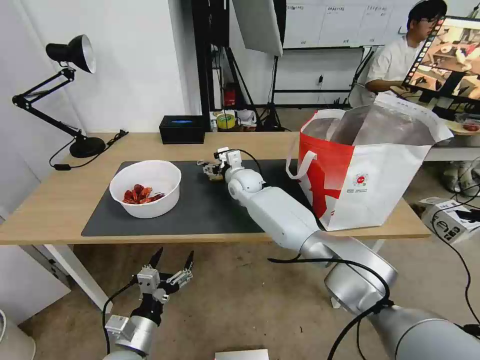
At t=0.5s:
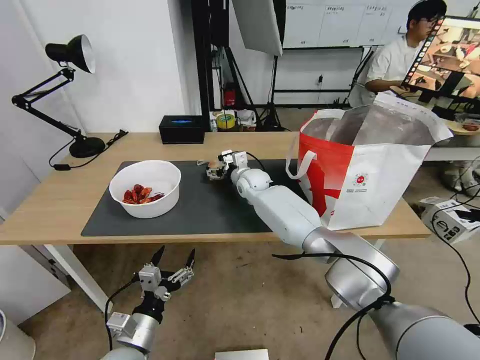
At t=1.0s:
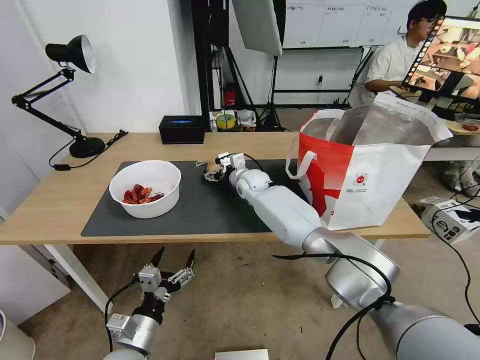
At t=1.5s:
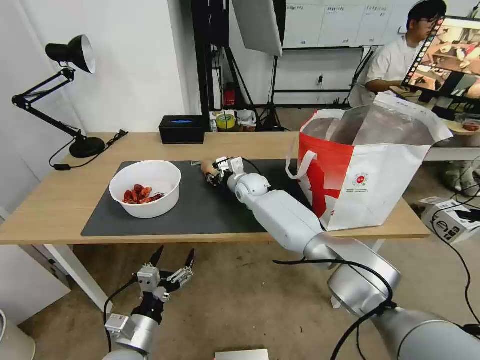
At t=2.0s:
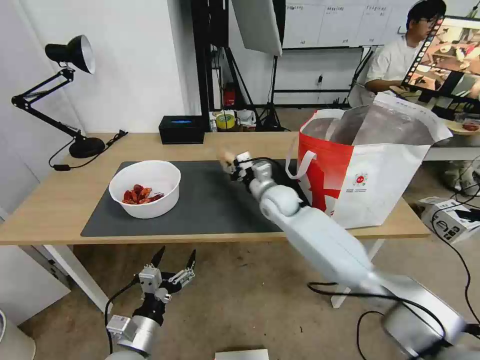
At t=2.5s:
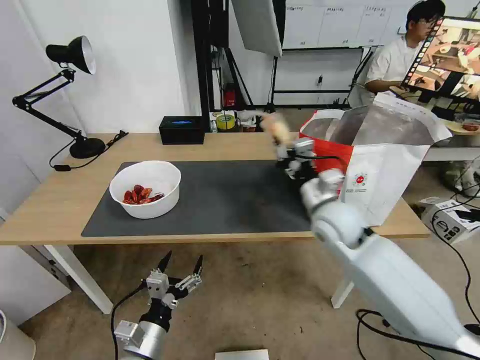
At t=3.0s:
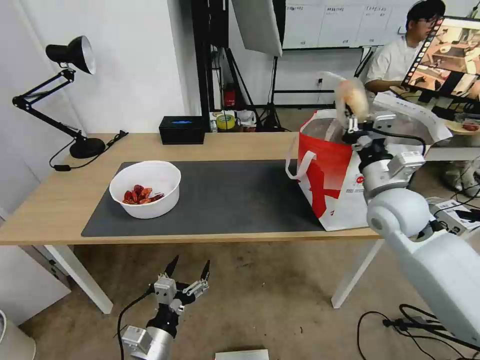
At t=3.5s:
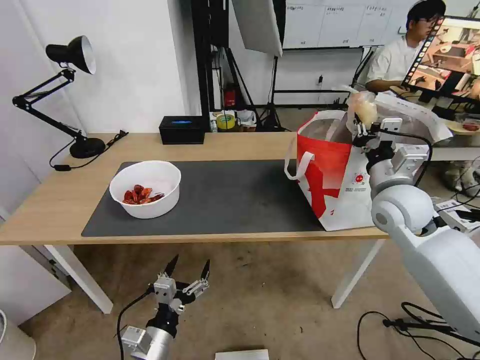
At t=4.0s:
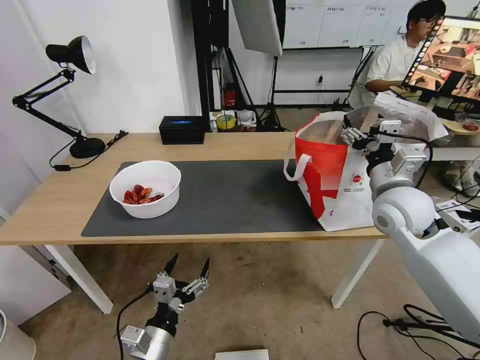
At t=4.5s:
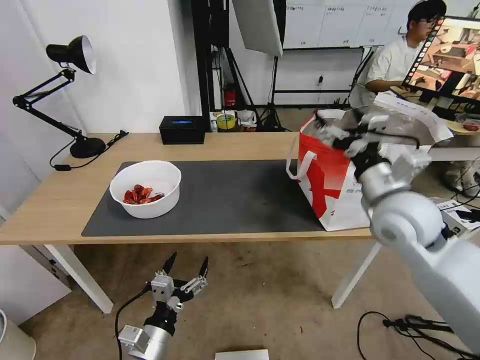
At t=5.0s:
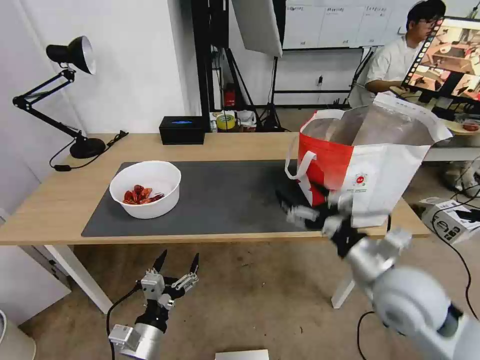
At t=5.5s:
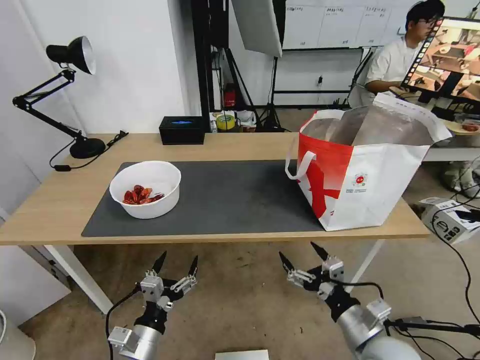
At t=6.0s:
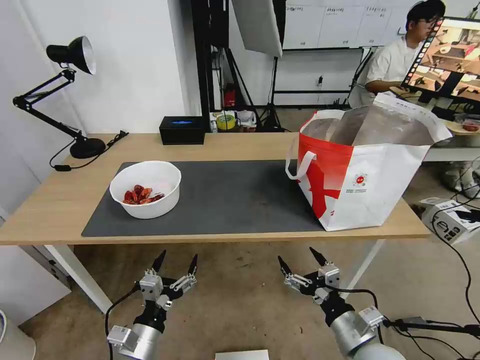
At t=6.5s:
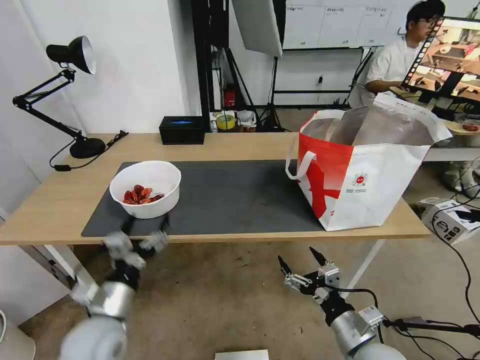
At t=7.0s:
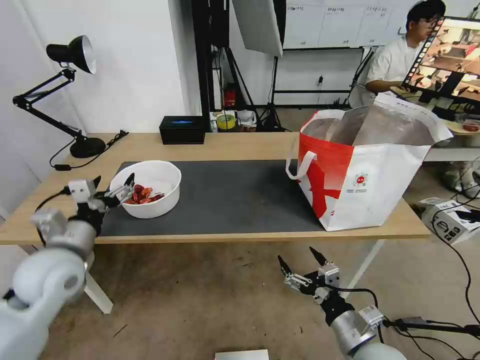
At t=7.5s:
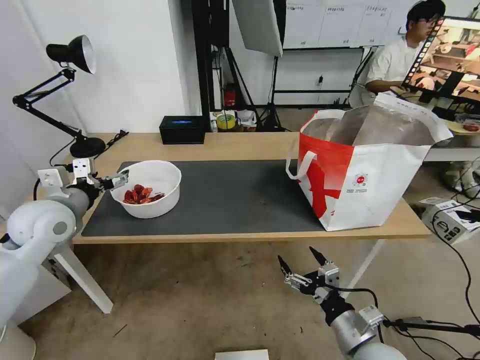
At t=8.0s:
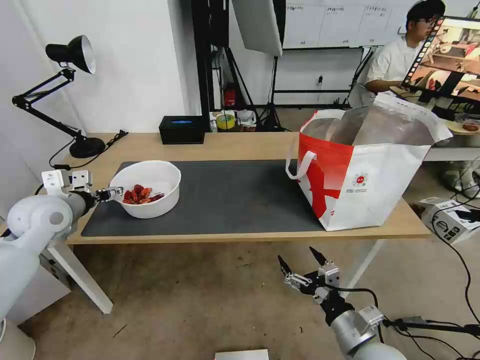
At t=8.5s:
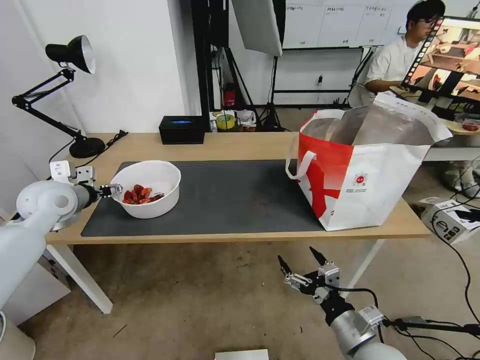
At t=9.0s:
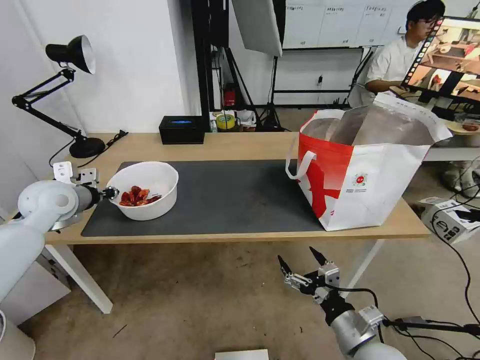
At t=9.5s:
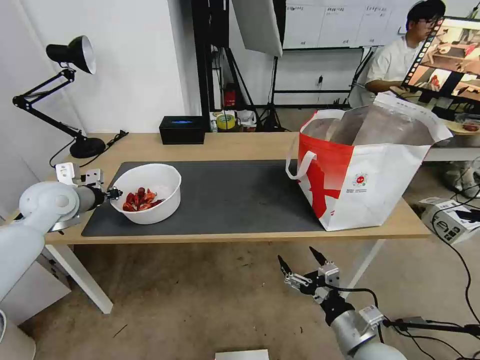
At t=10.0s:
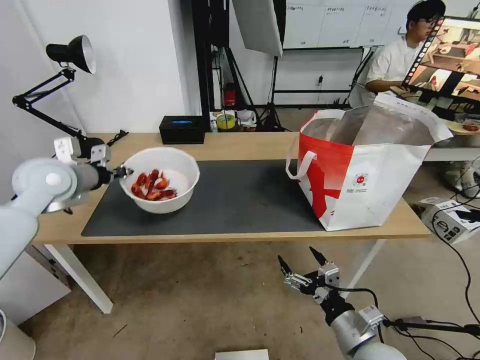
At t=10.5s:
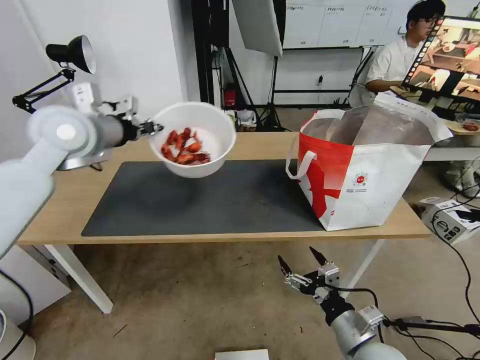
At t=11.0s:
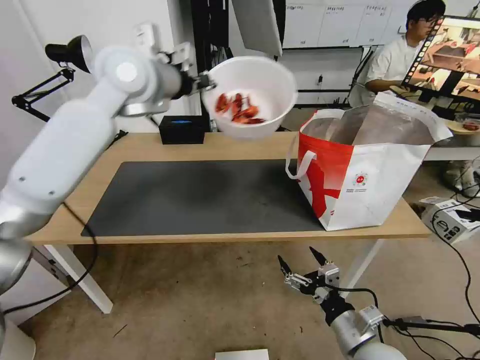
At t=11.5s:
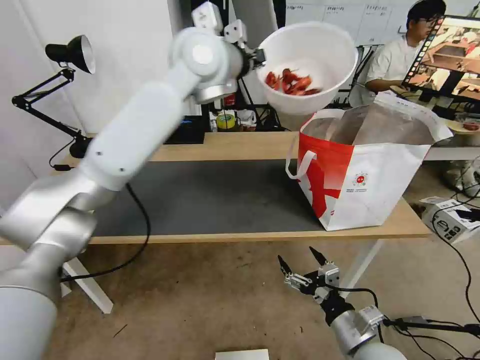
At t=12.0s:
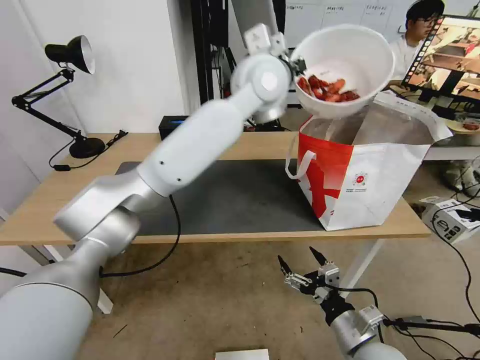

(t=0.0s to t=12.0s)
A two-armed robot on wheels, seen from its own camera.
Task of the whole recording: Pick up the trash from the table and place it into the takeout bag.
t=0.0s - t=2.0s: The right gripper travels to the right and backward by approximately 10 cm, and closes.
t=2.0s - t=4.0s: The right gripper goes some 30 cm to the right, backward and upward, and opens its fingers.
t=4.0s - t=6.0s: The right gripper is displaced backward and downward by some 30 cm.
t=6.0s - t=8.0s: The left gripper heads forward, upward and to the left, covering about 35 cm.
t=8.0s - t=10.0s: The left gripper shifts about 5 cm upward, and closes its fingers.
t=10.0s - t=12.0s: The left gripper is displaced to the right by approximately 40 cm.

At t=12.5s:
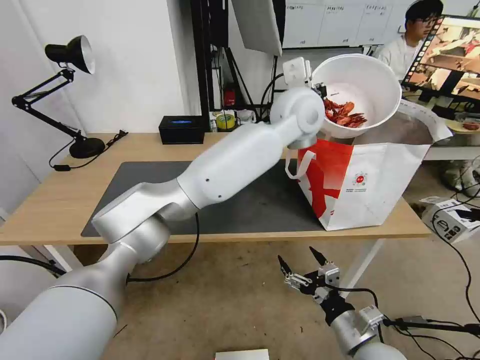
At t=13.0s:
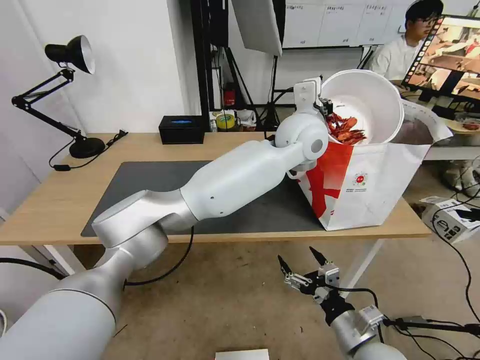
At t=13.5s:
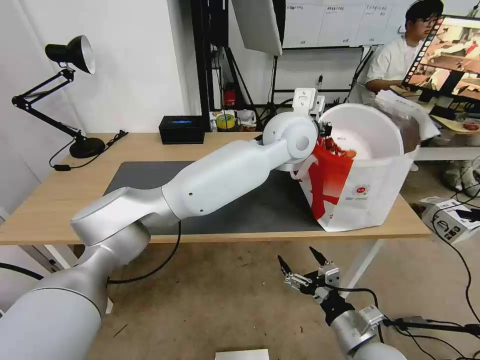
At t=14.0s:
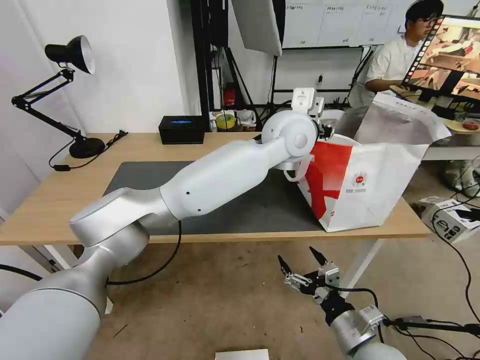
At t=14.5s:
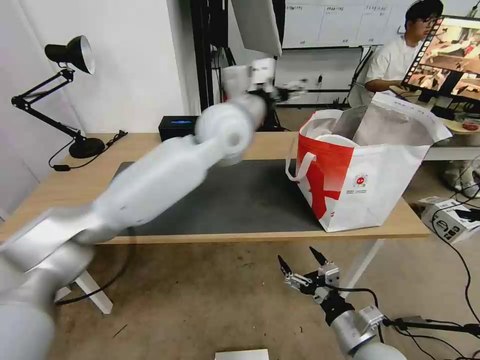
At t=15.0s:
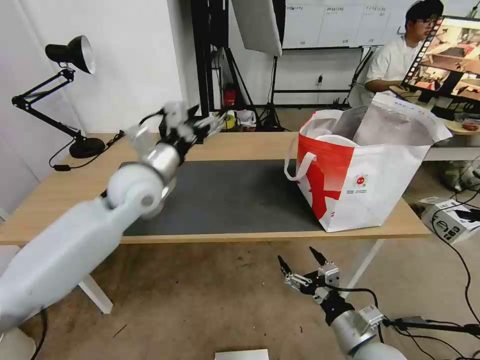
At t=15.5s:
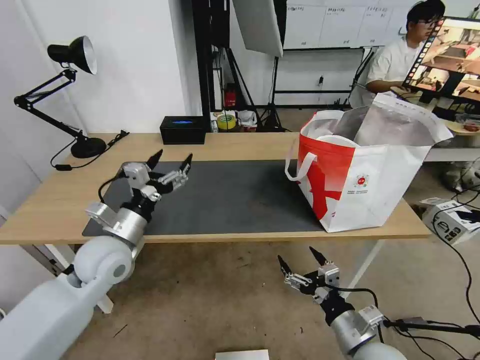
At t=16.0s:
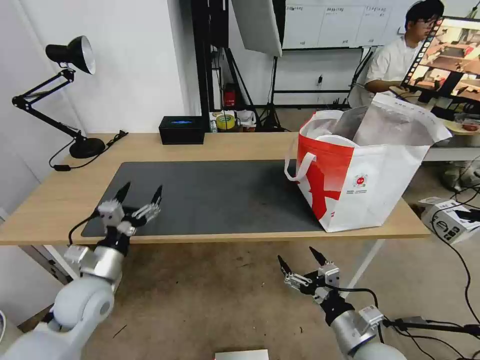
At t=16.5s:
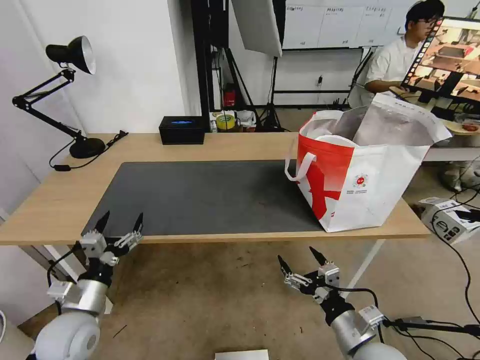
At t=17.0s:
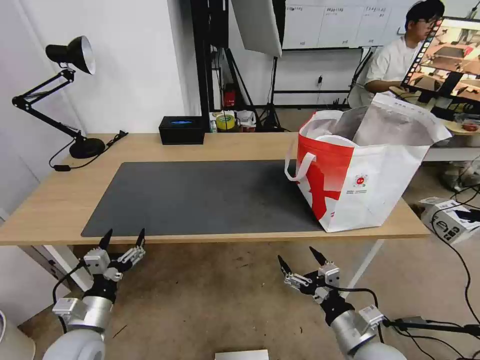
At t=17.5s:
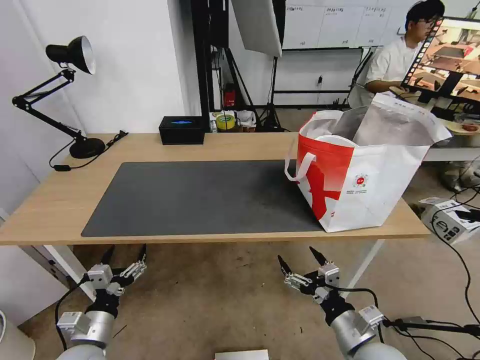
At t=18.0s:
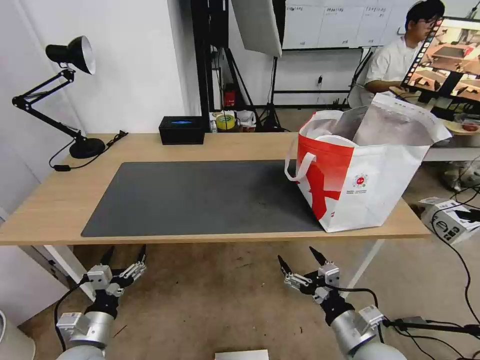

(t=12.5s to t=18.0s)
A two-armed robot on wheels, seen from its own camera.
Task of the whole recording: Pick up the trash from the table and place it into the takeout bag.
t=12.5s - t=14.5s: The left gripper goes about 15 cm to the left, and opens up.
t=14.5s - t=16.0s: The left gripper travels to the left, downward and backward by about 40 cm.
t=16.0s - t=18.0s: The left gripper shifts some 15 cm backward and downward.
